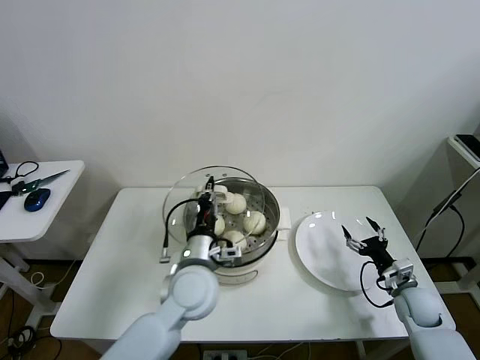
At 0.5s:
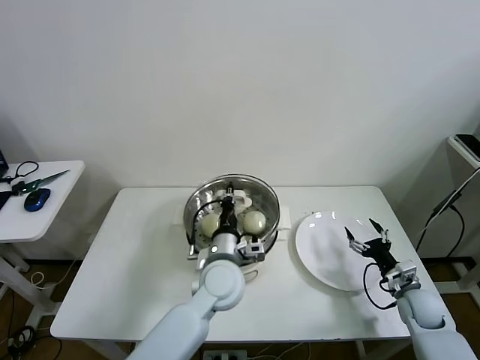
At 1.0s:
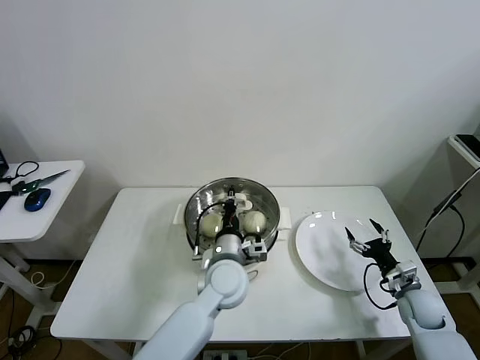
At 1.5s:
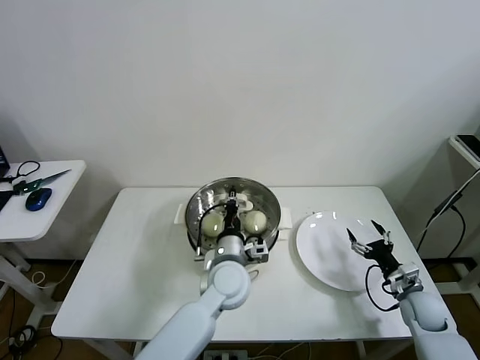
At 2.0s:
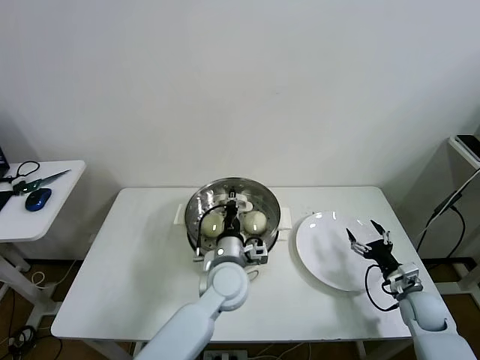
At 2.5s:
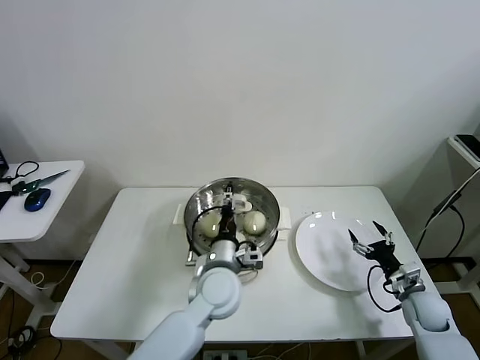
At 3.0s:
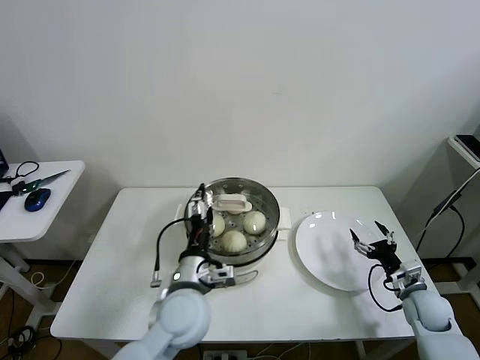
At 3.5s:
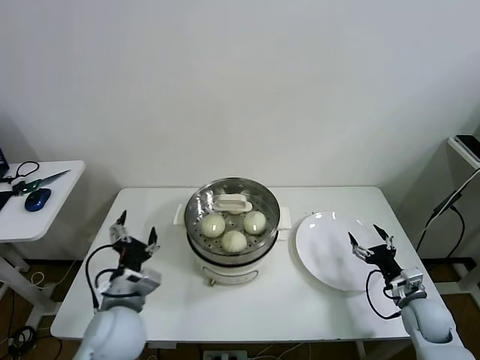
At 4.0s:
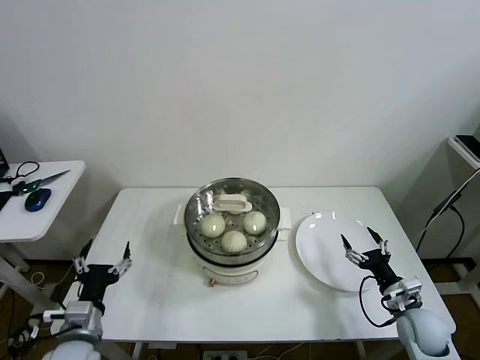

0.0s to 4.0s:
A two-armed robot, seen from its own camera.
Task of the whole recording: take steamed baozi put them in steamer then cover it.
Step, 0.0s to 2.0s: Place the pot lid on the steamer with left gripper.
0.0s to 2.0s: The left gripper moves to the right and downward, about 10 cm.
2.0s to 4.0s: The right gripper moves about 5 cm. The left gripper moves to the left and backward, some 30 cm, and opens its fingers.

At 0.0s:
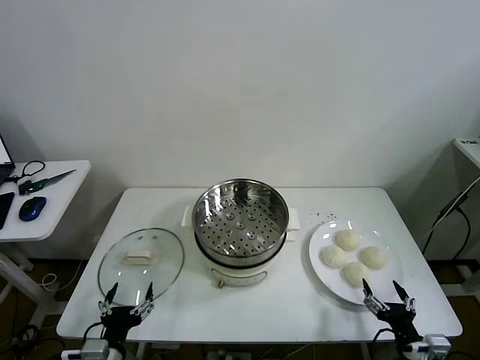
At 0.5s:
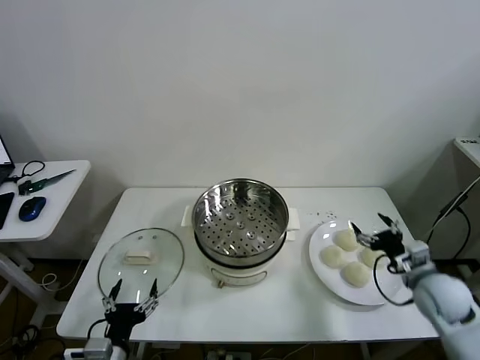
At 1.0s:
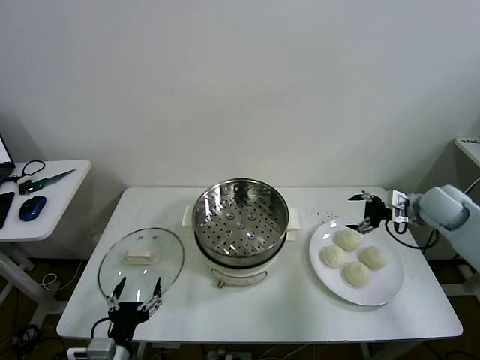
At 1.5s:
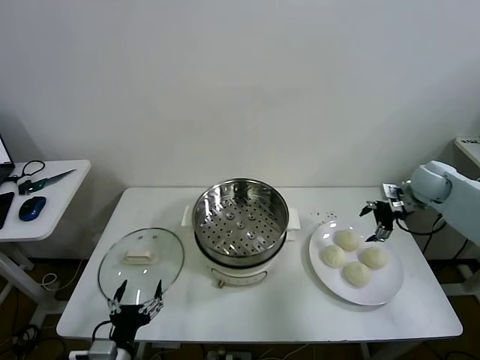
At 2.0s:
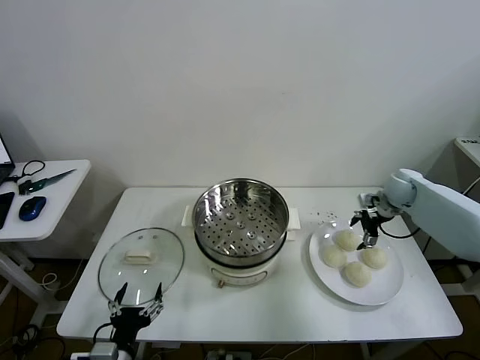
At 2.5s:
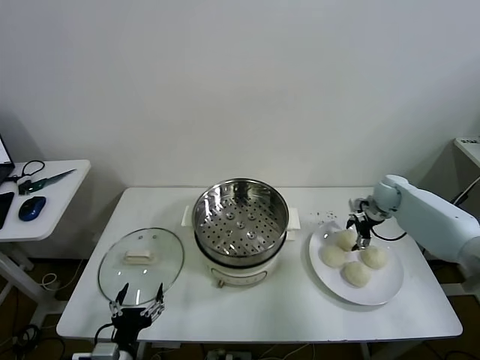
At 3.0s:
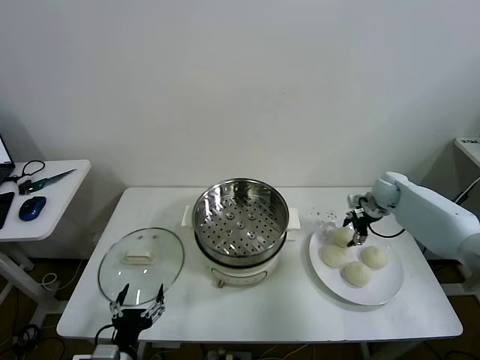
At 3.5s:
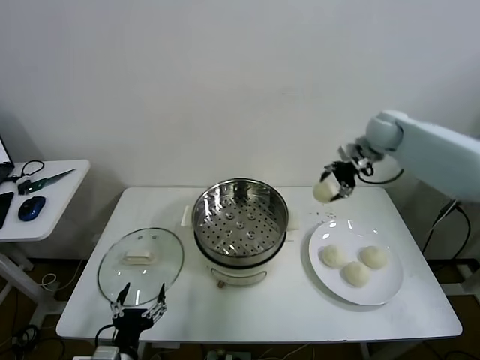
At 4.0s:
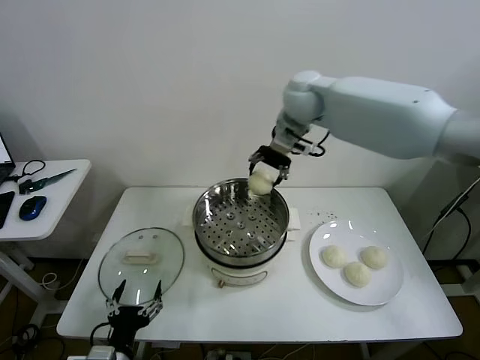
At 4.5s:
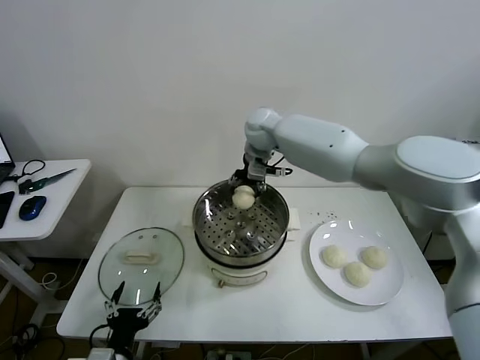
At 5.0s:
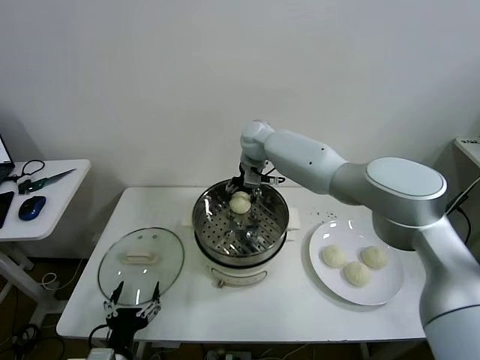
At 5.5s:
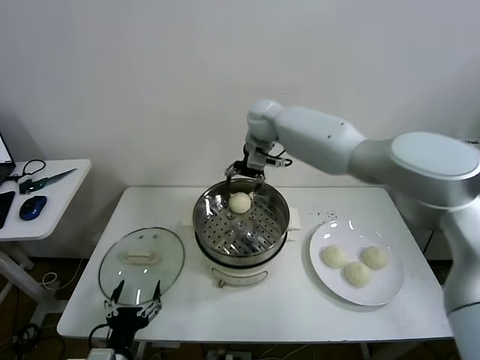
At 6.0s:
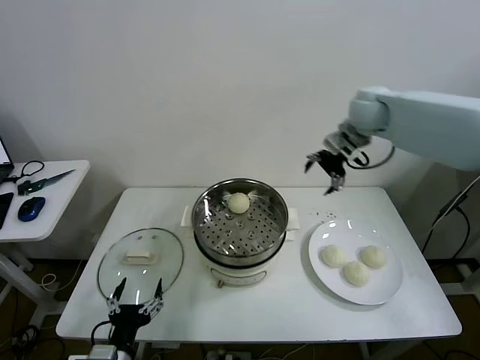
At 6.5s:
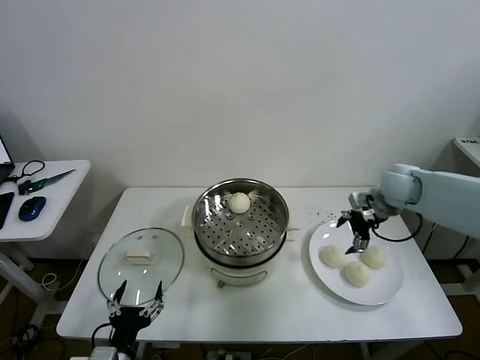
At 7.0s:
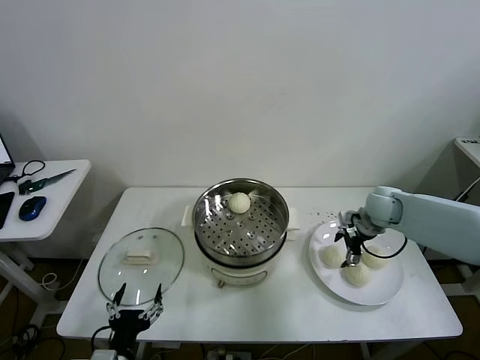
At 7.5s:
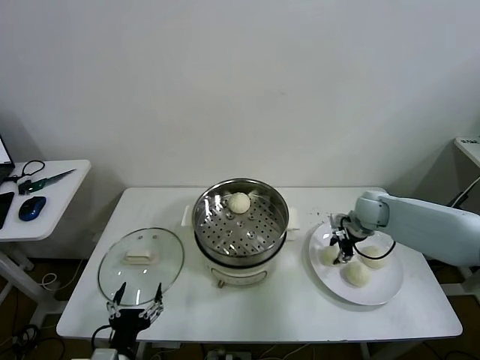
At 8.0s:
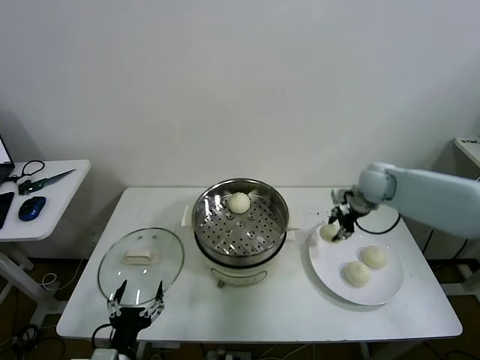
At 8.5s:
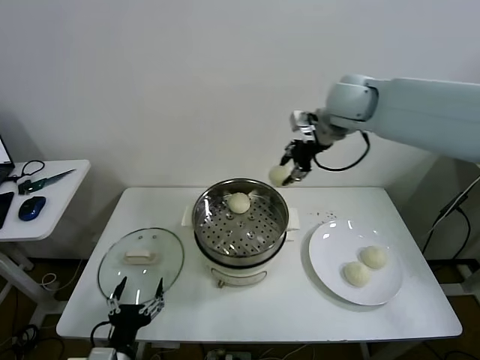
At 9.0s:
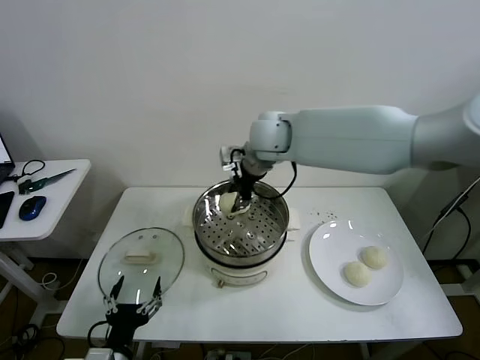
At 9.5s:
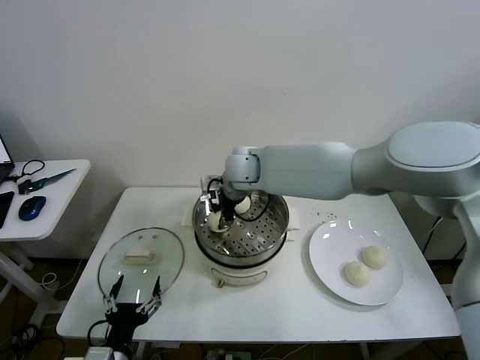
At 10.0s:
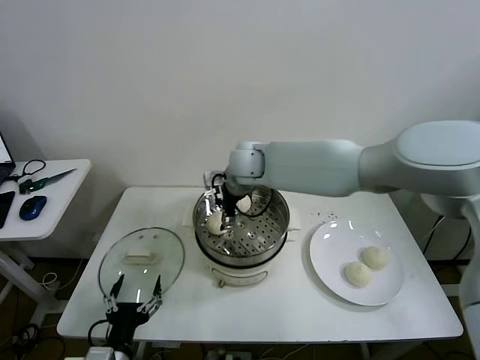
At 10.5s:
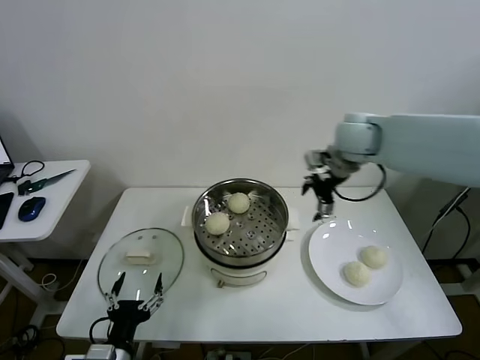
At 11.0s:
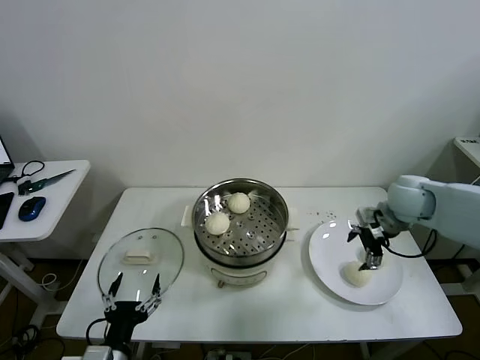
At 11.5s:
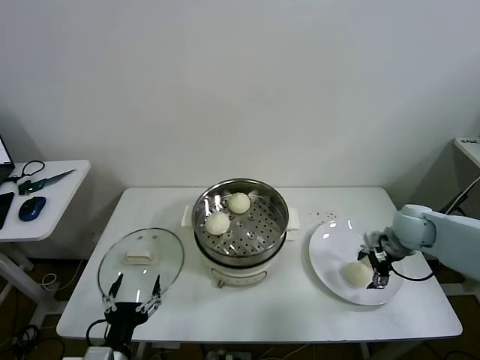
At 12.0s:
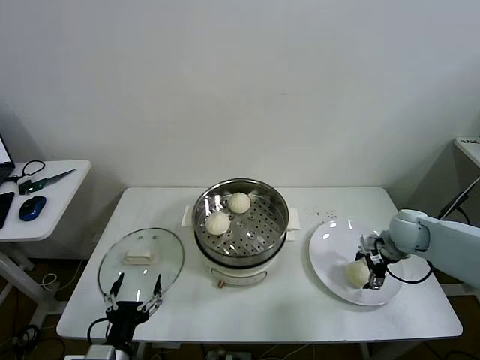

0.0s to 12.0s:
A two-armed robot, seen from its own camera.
Task of the whole recording: take steamed baozi put them in steamer then cover it.
Step, 0.0s to 2.5s: Grasp the baozi in the plate with right gripper.
Step, 3.0s to 5.5s: Place the baozi on the steamer with right gripper.
Step, 6.0s to 7.5s: Grasp the baozi in the plate with right gripper.
Step, 8.0s to 9.5s: Place the baozi on the steamer with right gripper.
2.0s to 4.0s: The right gripper shifts approximately 40 cm to the left and upward, and closes up.
4.0s to 6.0s: The right gripper travels to the right by some 20 cm, and opens.
6.0s to 8.0s: The right gripper goes approximately 10 cm downward, and closes up.
8.0s to 10.0s: The right gripper moves to the left, approximately 30 cm, and opens up.
10.0s to 12.0s: The right gripper goes about 40 cm to the right and downward.

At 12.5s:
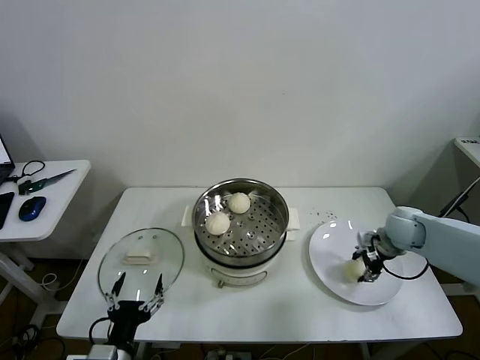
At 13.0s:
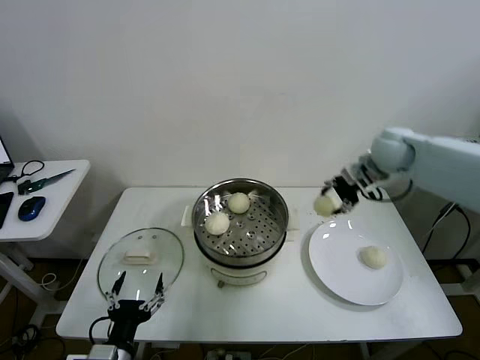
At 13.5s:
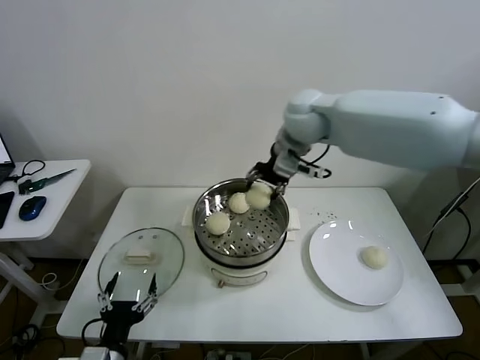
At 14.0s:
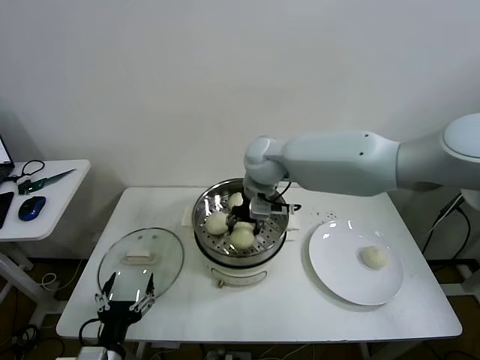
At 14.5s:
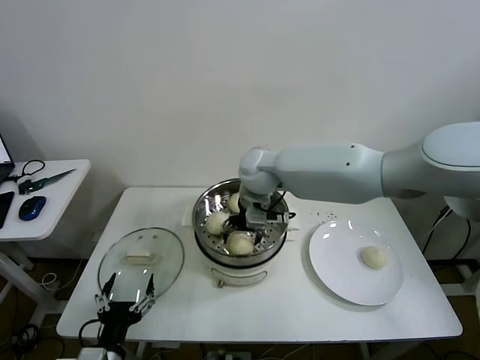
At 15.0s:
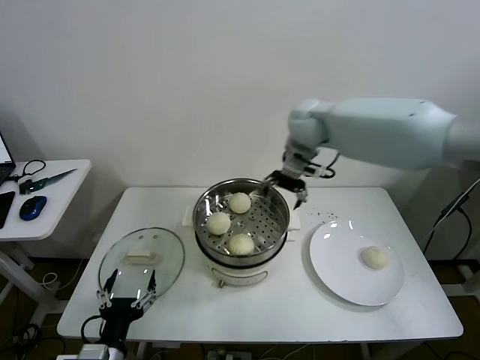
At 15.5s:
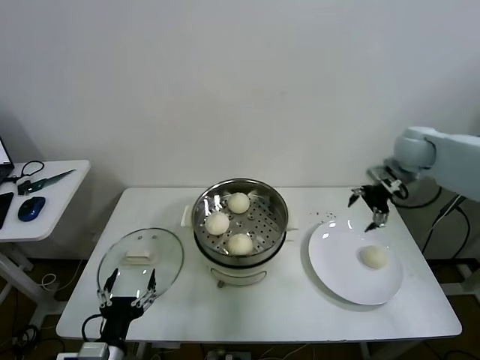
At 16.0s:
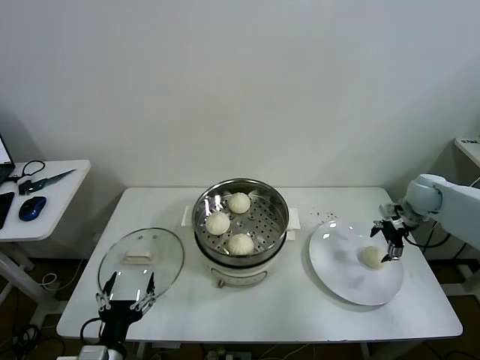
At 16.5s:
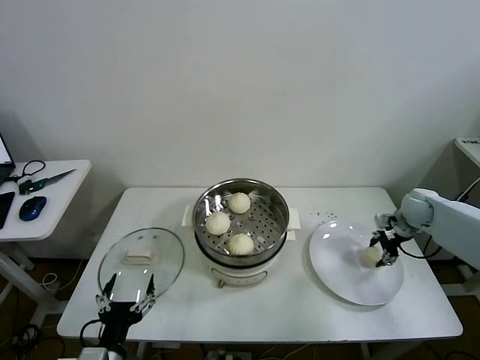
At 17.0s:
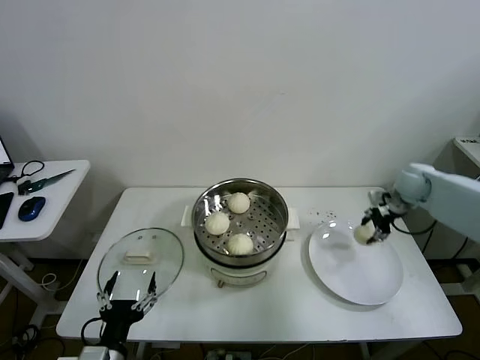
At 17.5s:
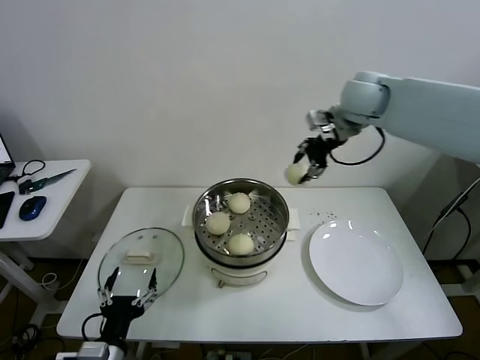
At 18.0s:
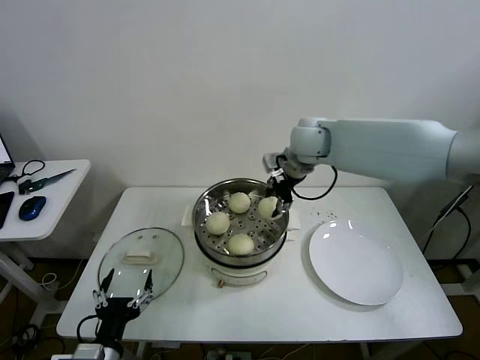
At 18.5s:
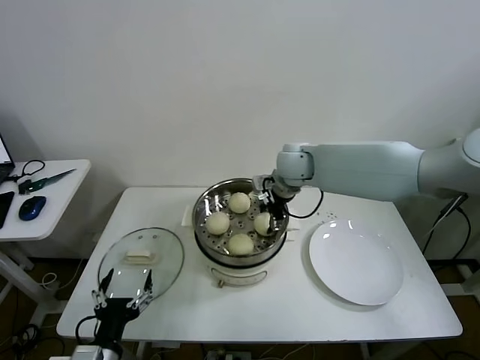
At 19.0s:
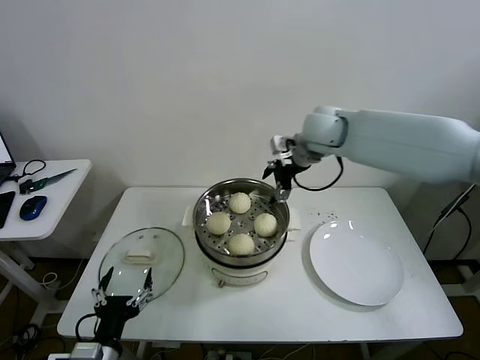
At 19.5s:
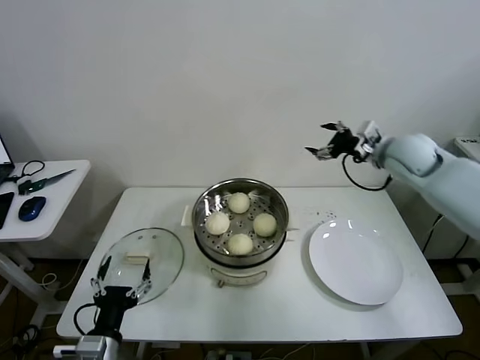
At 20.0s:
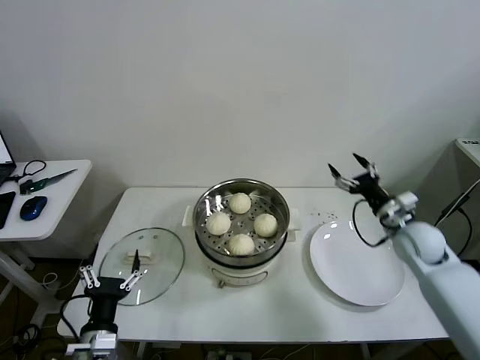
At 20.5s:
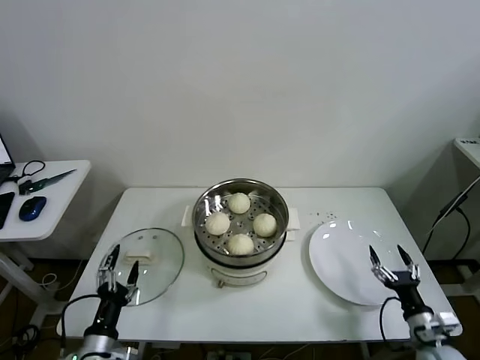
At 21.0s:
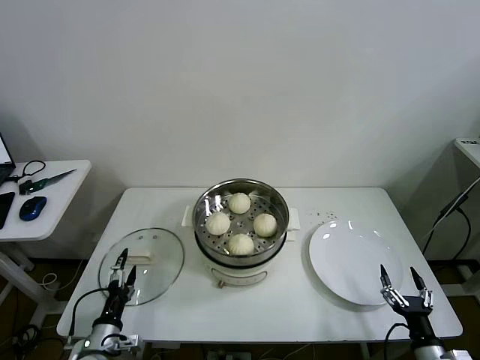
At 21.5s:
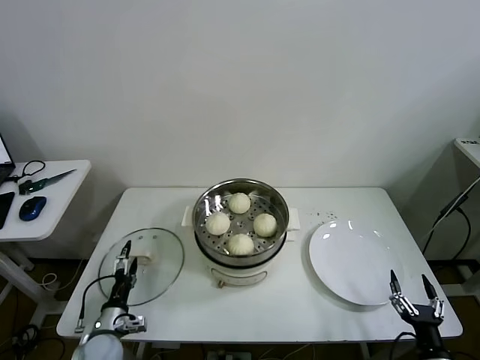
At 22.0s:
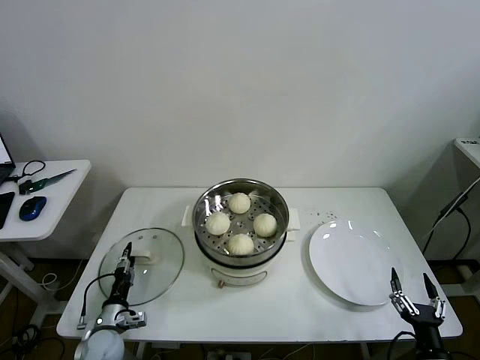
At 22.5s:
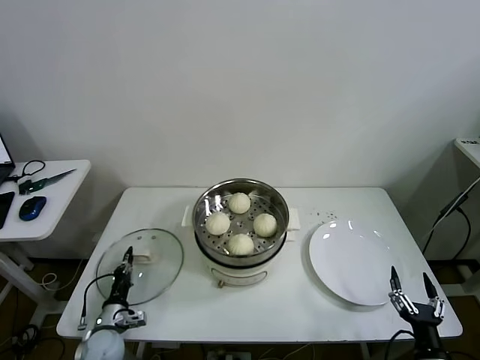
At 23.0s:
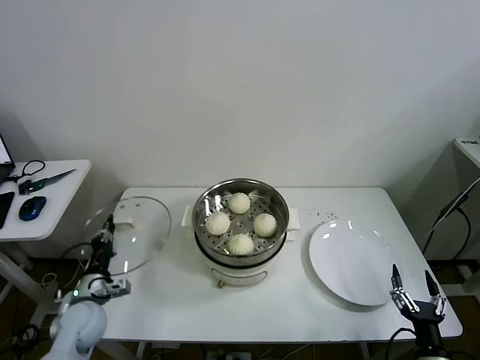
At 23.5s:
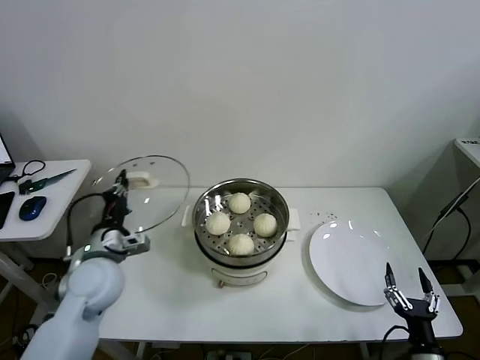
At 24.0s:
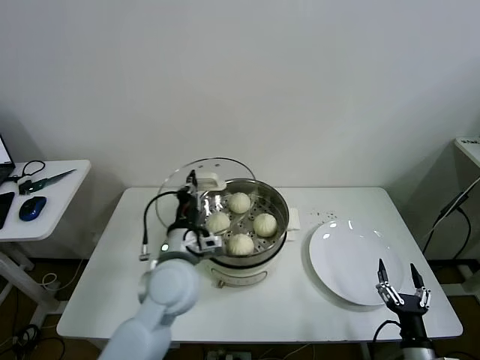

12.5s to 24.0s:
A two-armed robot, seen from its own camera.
Task of the whole recording: take steamed baozi put them in steamer then cover it.
Step, 12.5s to 14.5s: Place the baozi on the steamer with right gripper.
Step, 15.0s to 16.5s: Grasp the baozi in the plate with right gripper.
Step, 17.0s to 18.5s: Place the baozi on the steamer with right gripper.
Step, 19.0s to 22.0s: Grasp the pot lid with left gripper.
12.5s to 14.5s: The right gripper shifts roughly 35 cm to the left, and opens up.
14.5s to 16.5s: The right gripper is displaced to the right by some 40 cm, and closes.
16.5s to 18.5s: The right gripper goes roughly 35 cm to the left and upward.
18.5s to 20.0s: The right gripper is displaced to the right, downward and backward by approximately 35 cm, and opens.
20.0s to 22.0s: The right gripper shifts approximately 35 cm backward and downward; the left gripper is displaced downward, forward and to the left by about 20 cm, and closes.
22.0s to 24.0s: The left gripper moves upward and to the right, roughly 35 cm, and closes.
